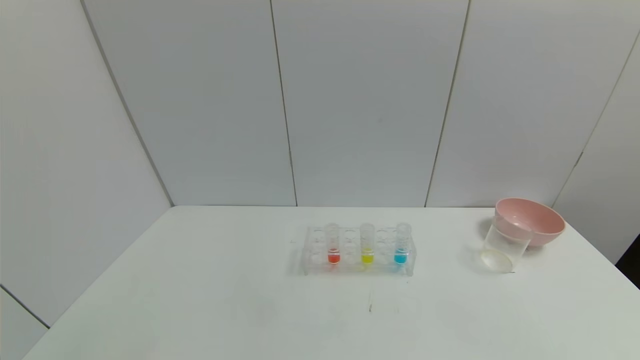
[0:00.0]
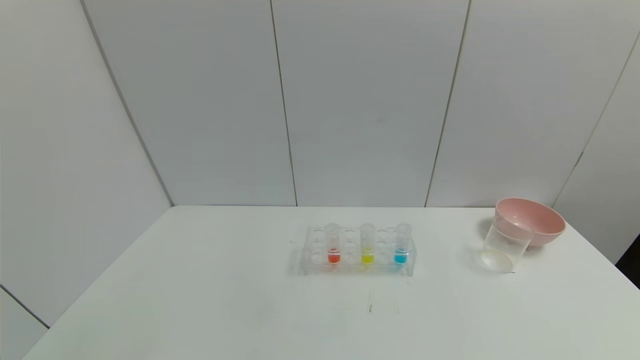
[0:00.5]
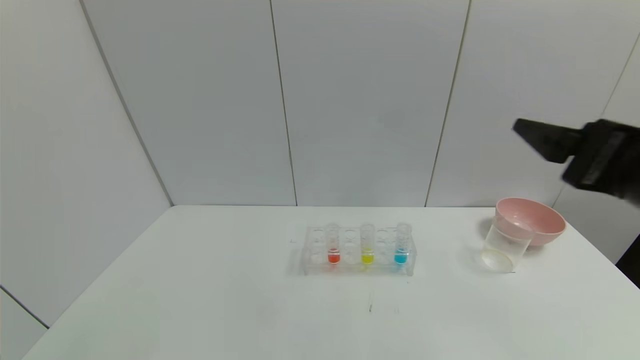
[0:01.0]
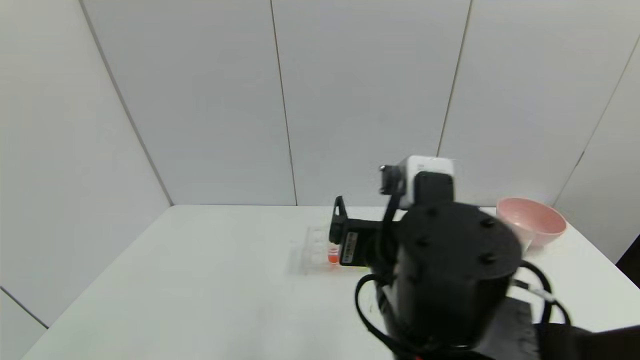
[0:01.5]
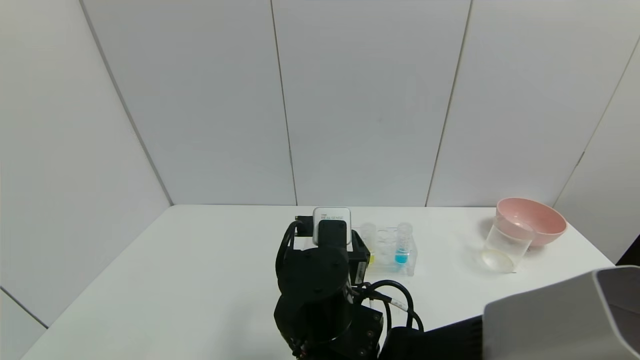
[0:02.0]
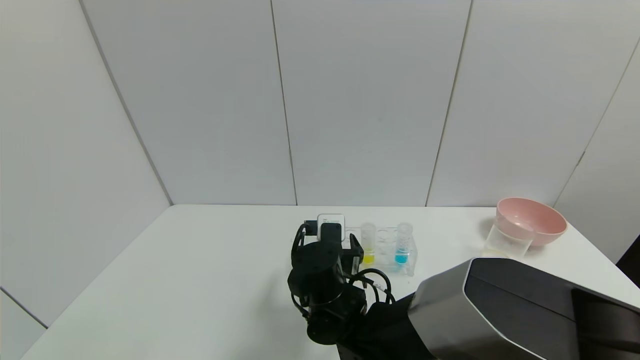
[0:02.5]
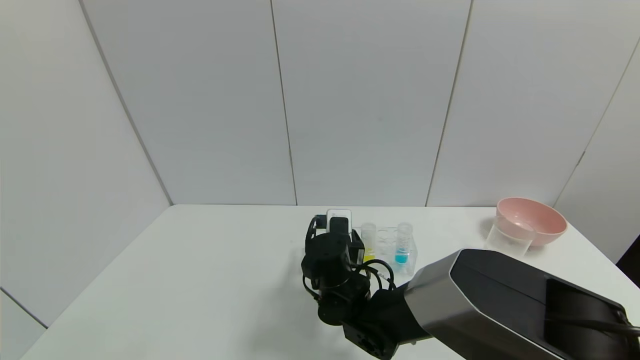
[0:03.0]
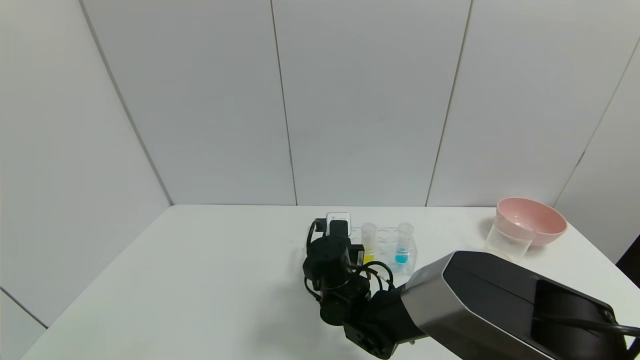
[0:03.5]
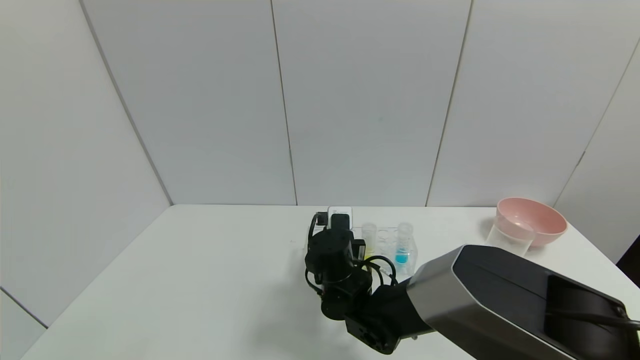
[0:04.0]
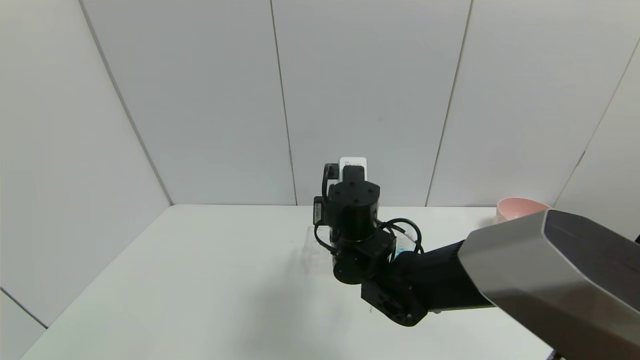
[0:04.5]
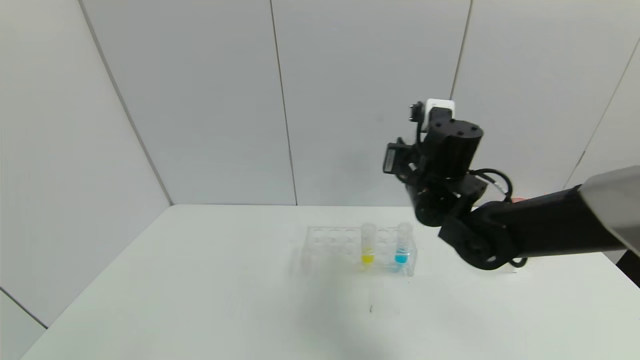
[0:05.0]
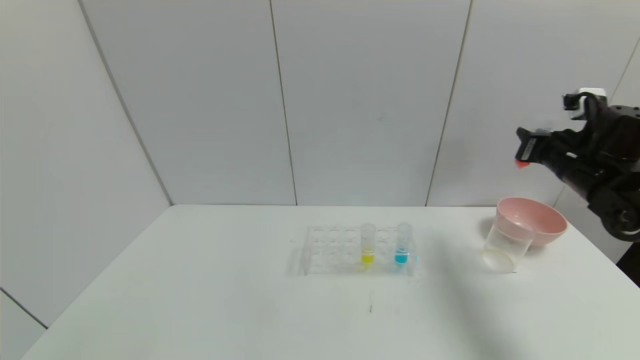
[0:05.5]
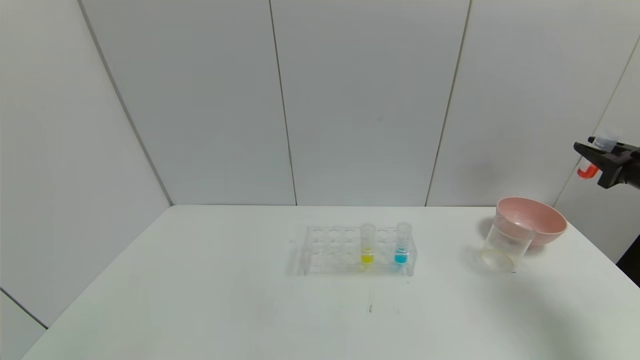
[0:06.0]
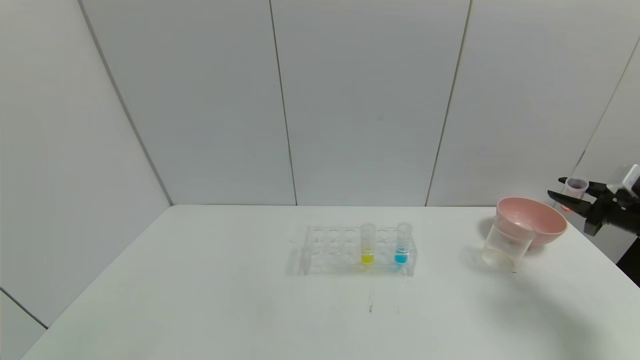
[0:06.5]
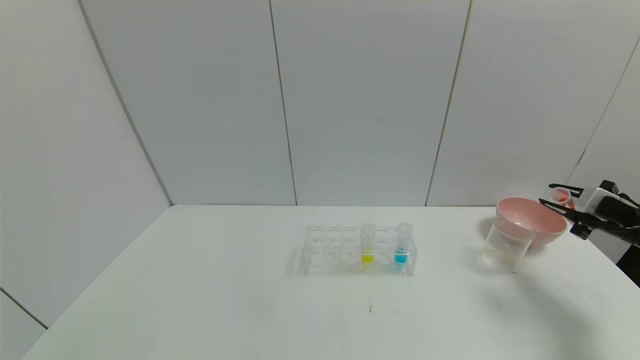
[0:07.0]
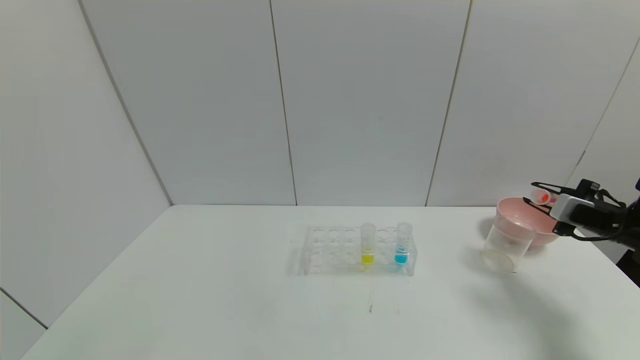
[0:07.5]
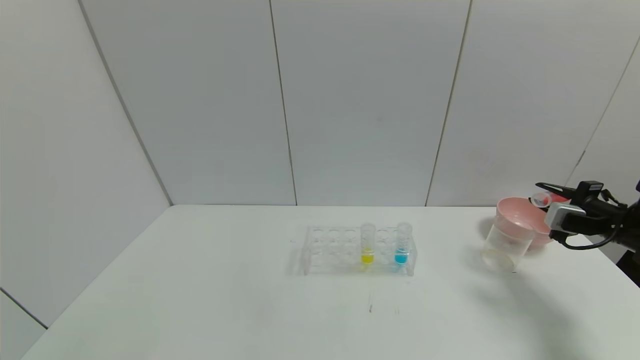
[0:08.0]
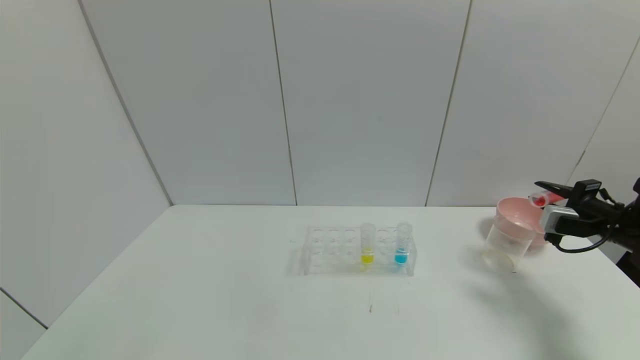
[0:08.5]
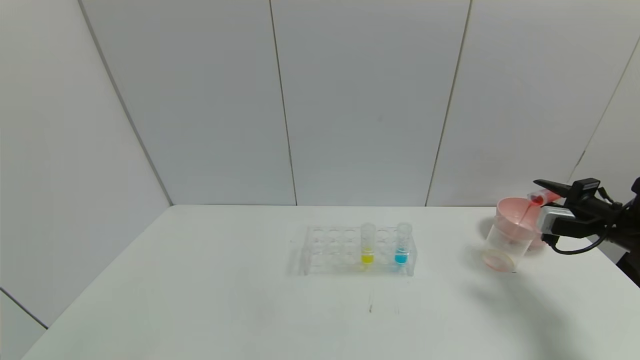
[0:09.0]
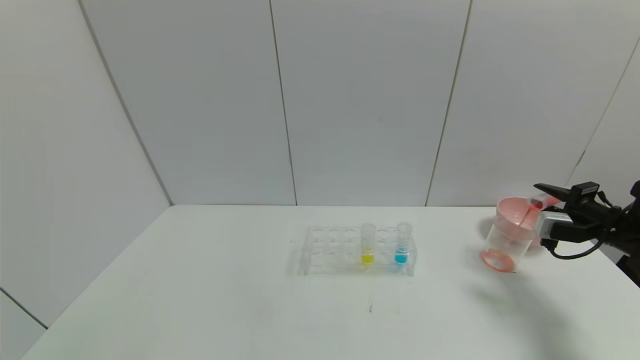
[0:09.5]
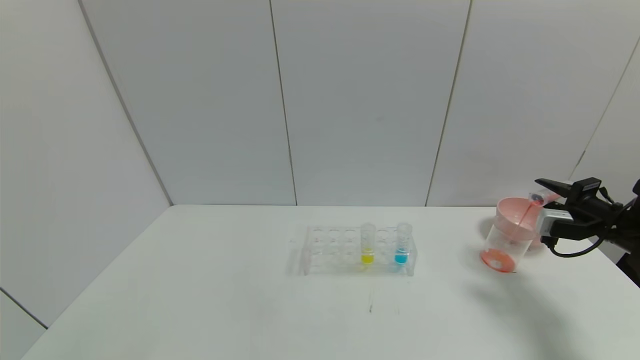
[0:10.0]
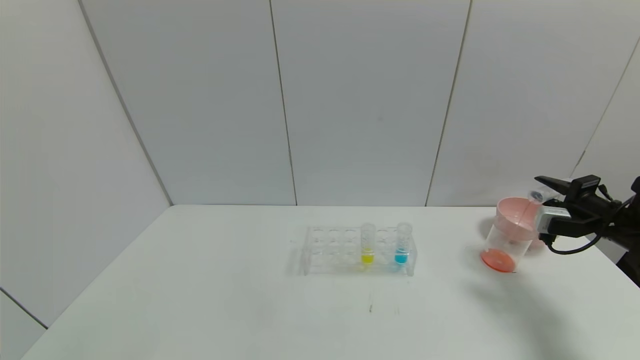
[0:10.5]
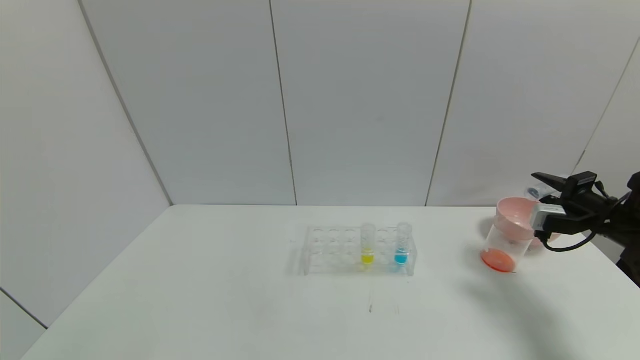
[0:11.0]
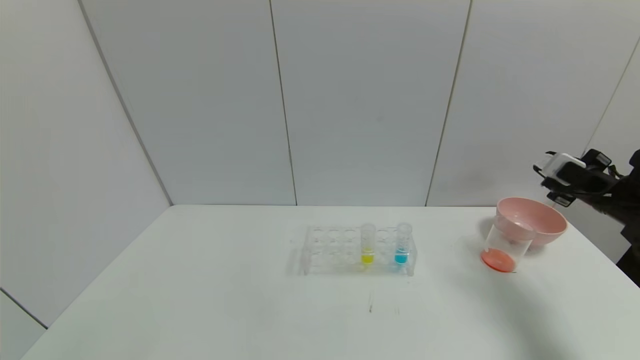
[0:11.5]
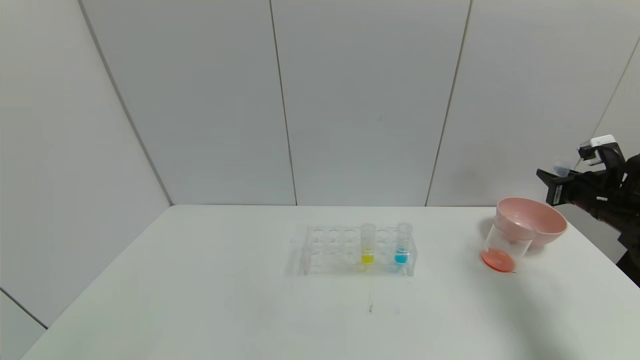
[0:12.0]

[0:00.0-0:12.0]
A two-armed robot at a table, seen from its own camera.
Task of the whole recording: pick up the test tube with yellow pigment and the test tube with red pigment by grippers and pour them into the beaker.
Step, 0:00.0 to 0:03.0: Grasp the red reagent with the right gripper.
Step, 0:03.5 to 0:11.0: Pour the red reagent into the graduated cylinder with the right gripper.
0:00.0 to 0:02.0: The right gripper shifts approximately 50 cm to the left and forward.
0:02.0 to 0:04.0: The right gripper heads forward and downward, covering some 10 cm, and closes.
0:04.0 to 0:06.0: The right gripper shifts roughly 50 cm to the right.
0:06.0 to 0:08.0: The right gripper is displaced downward by roughly 10 cm.
0:08.0 to 0:10.0: There are only small adjustments of the grippers.

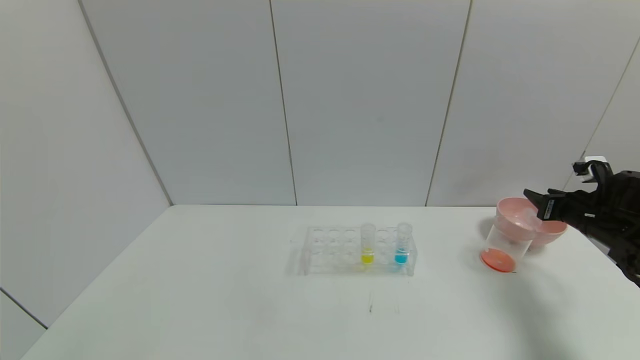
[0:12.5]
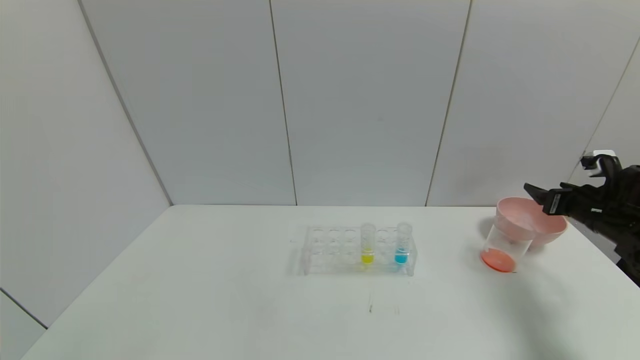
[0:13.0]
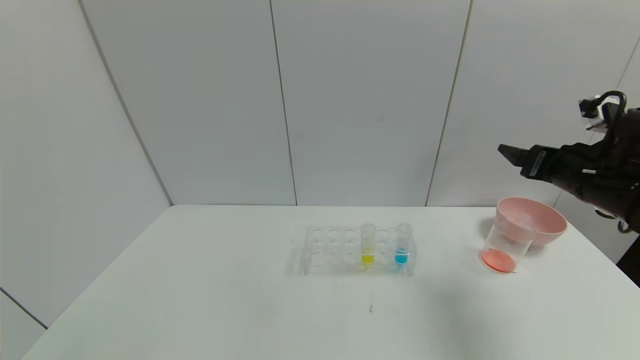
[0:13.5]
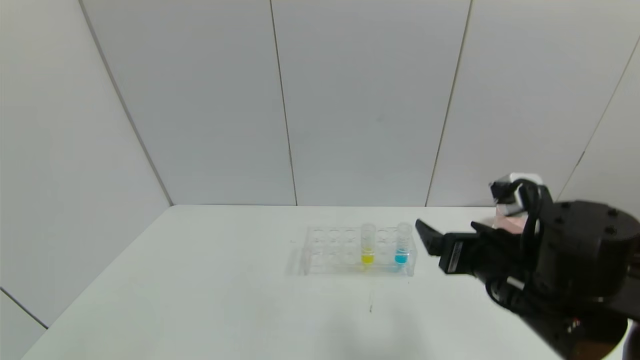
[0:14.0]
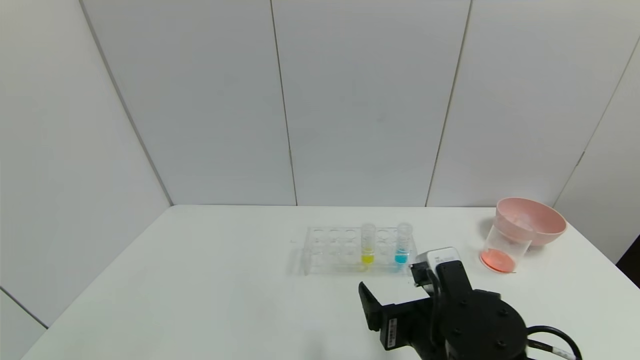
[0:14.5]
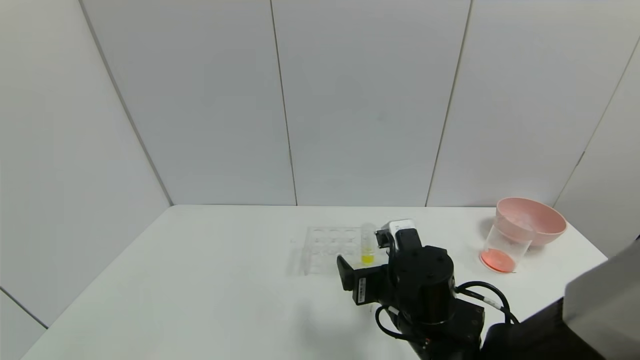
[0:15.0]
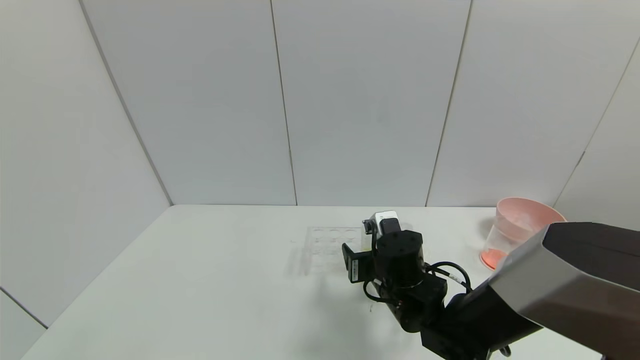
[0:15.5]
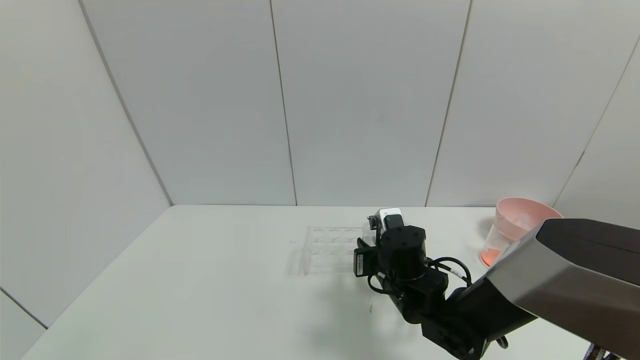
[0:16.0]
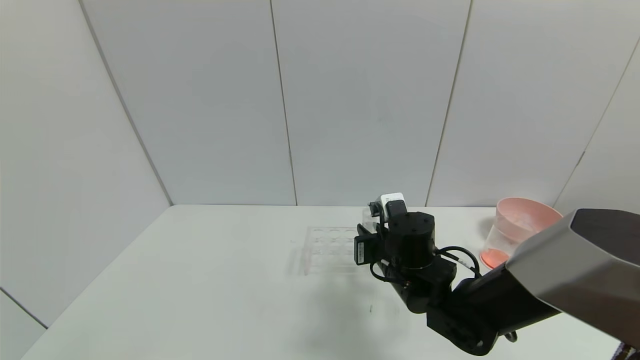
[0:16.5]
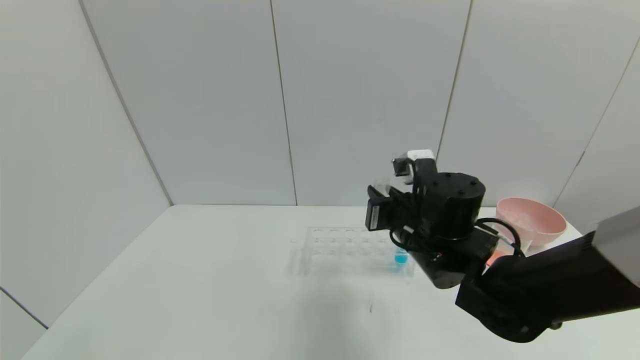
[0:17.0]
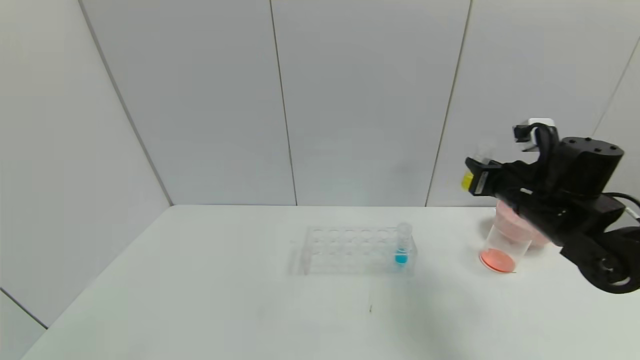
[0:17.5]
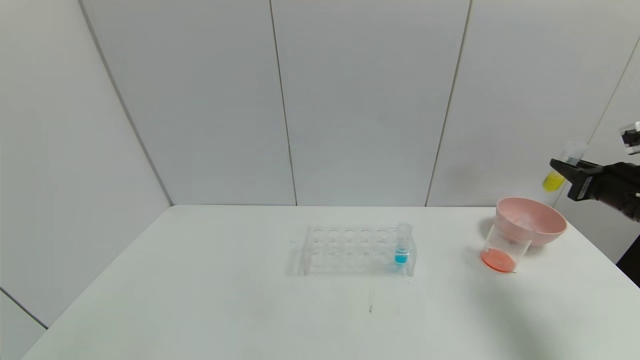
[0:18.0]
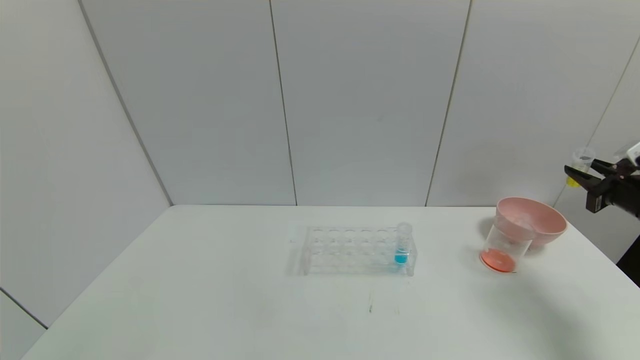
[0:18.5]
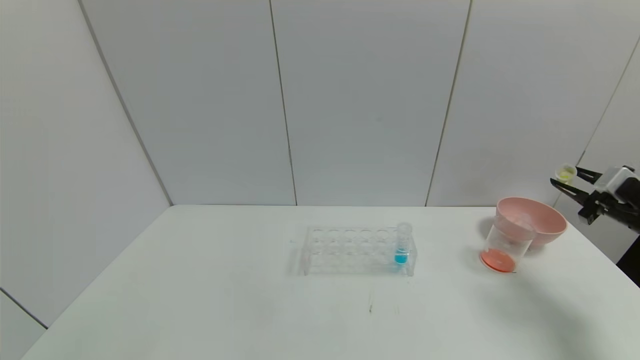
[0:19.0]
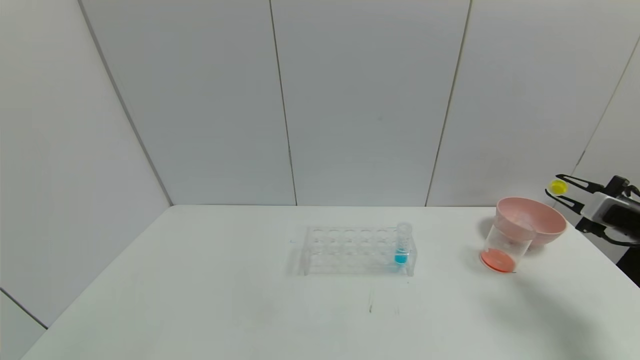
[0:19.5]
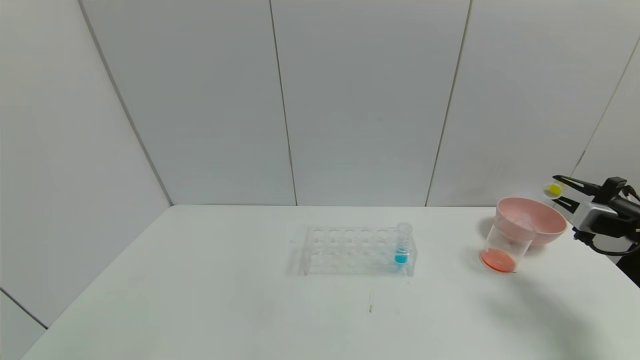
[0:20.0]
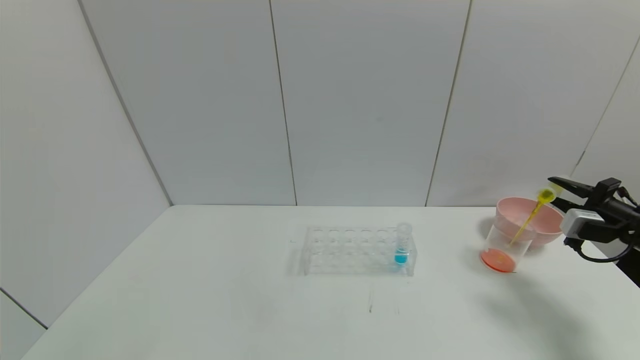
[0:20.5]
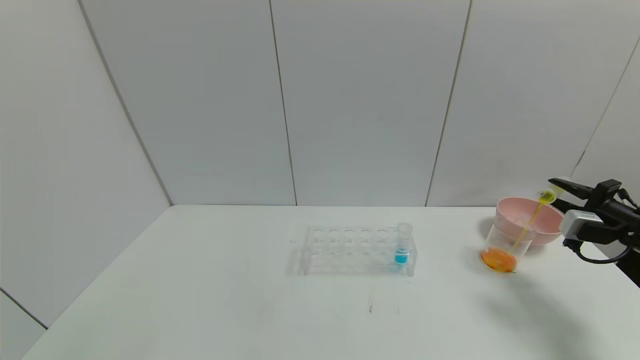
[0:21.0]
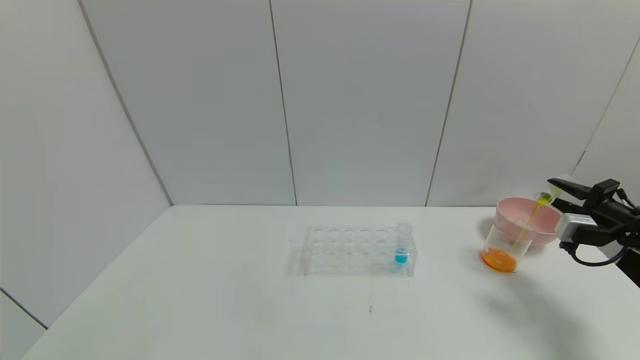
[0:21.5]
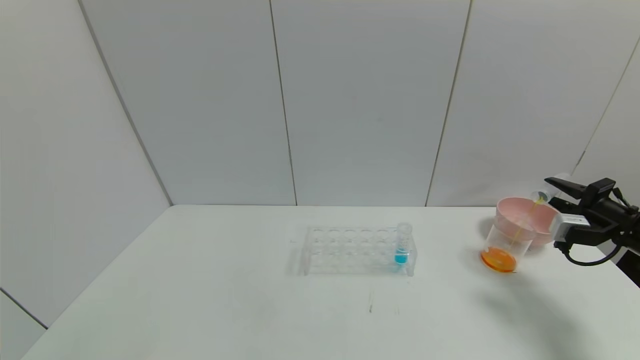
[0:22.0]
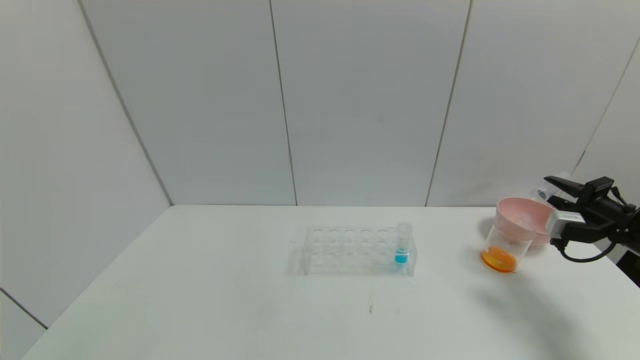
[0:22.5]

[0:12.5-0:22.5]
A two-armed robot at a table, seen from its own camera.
Task of the whole recording: pick up the test tube with yellow pigment and the test tube with red pigment by grippers and pour them into the beaker.
Step, 0:13.0 to 0:16.0: Grasp the yellow reagent with the right gripper.
Step, 0:16.5 to 0:22.0: Pour the yellow reagent into the graduated cylinder with the right gripper.
0:12.5 to 0:14.5: The right gripper heads to the left and backward, covering approximately 40 cm, and opens.
0:14.5 to 0:16.5: The right gripper goes approximately 15 cm forward, and closes.
0:16.5 to 0:18.5: The right gripper heads to the right, covering about 40 cm.
0:20.5 to 0:22.5: The grippers move only a little.
